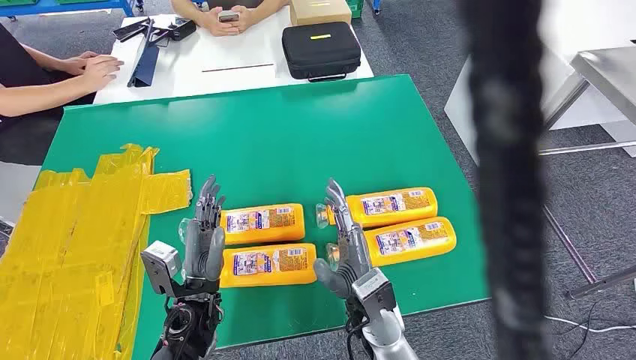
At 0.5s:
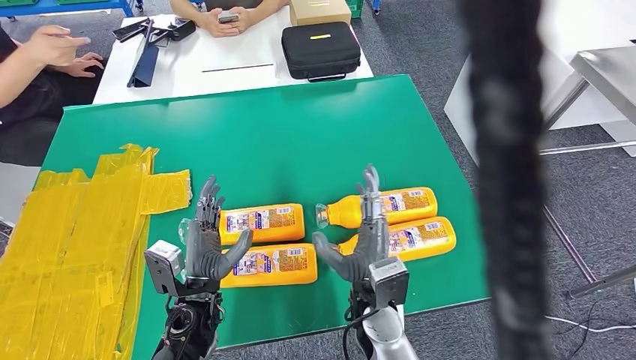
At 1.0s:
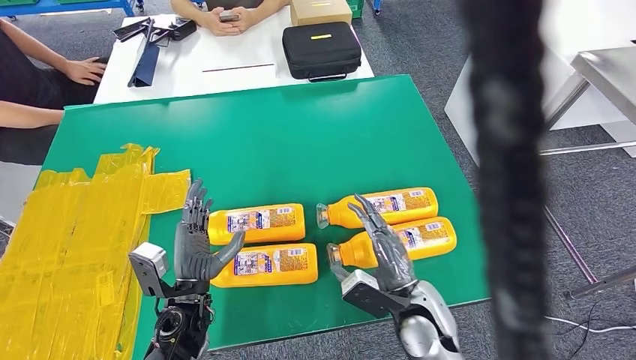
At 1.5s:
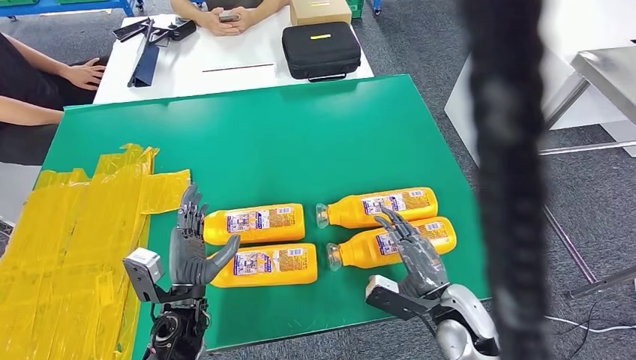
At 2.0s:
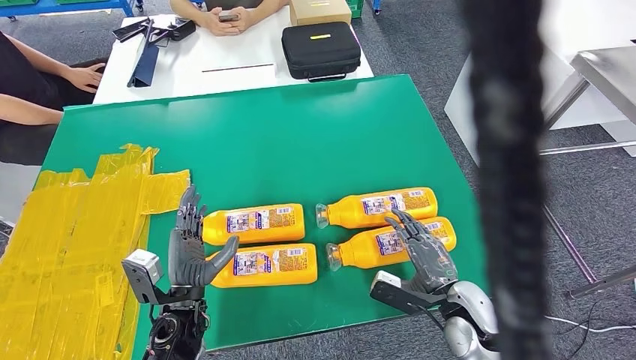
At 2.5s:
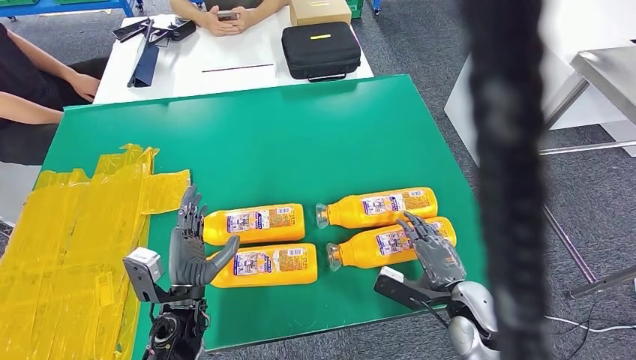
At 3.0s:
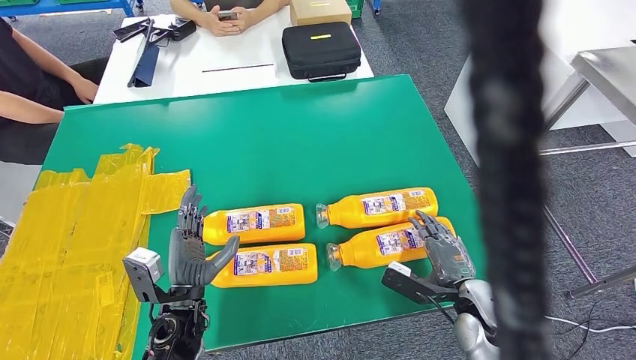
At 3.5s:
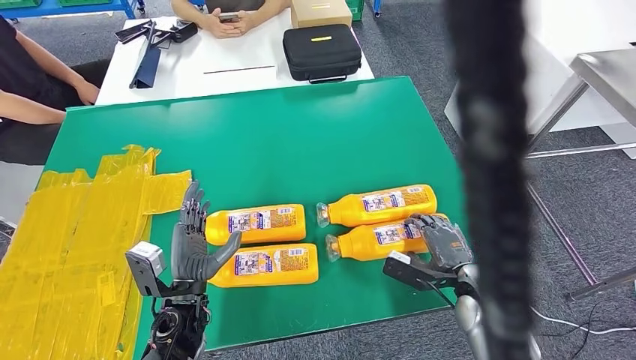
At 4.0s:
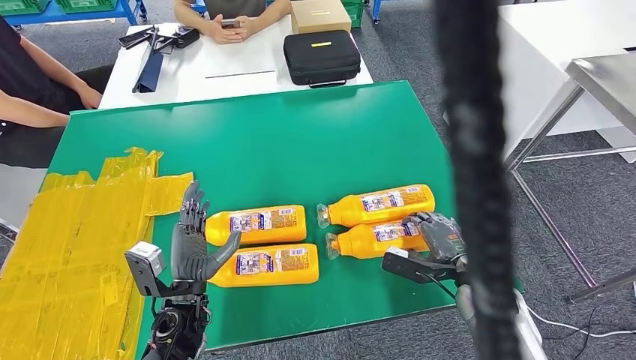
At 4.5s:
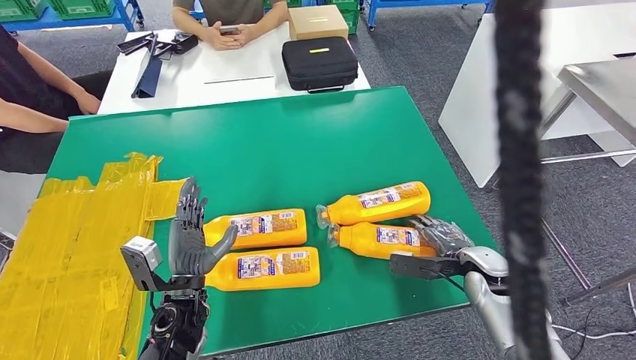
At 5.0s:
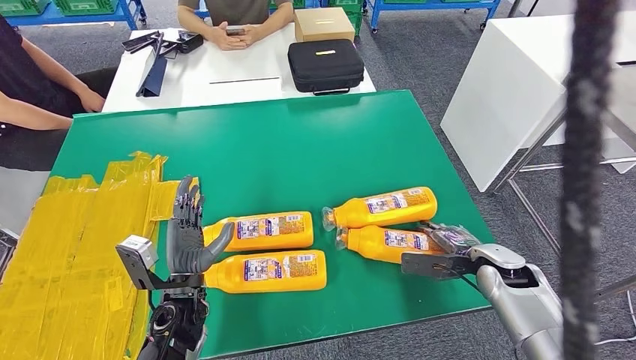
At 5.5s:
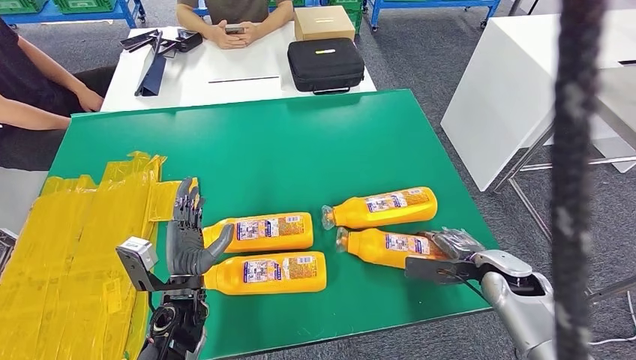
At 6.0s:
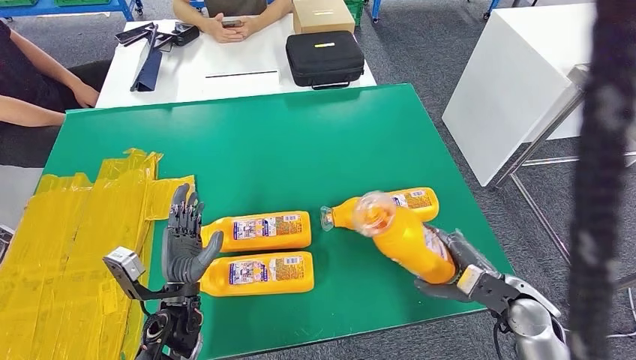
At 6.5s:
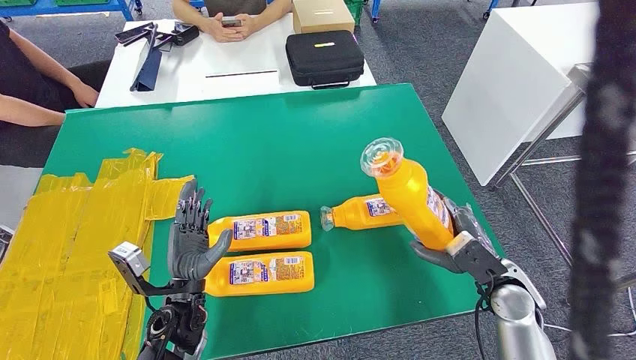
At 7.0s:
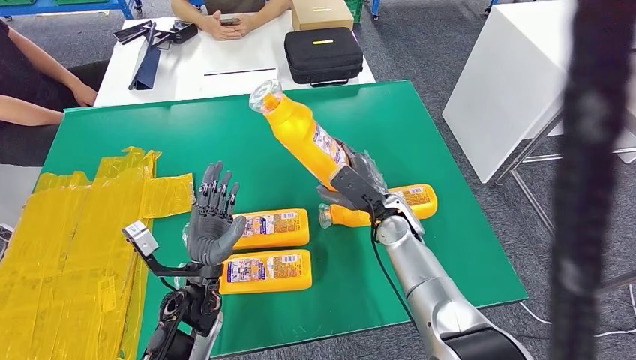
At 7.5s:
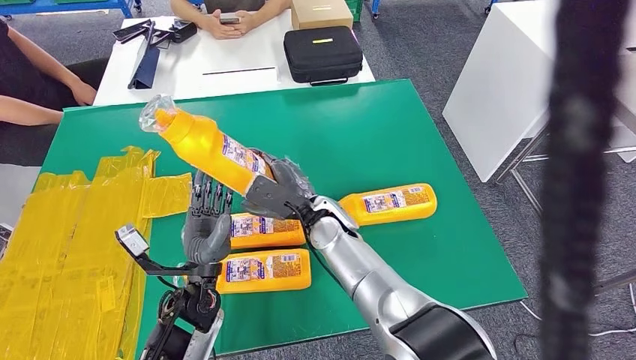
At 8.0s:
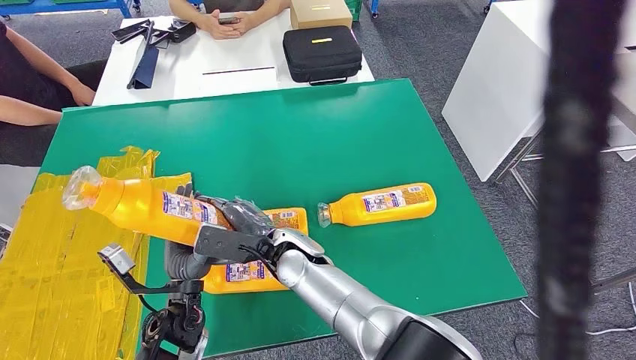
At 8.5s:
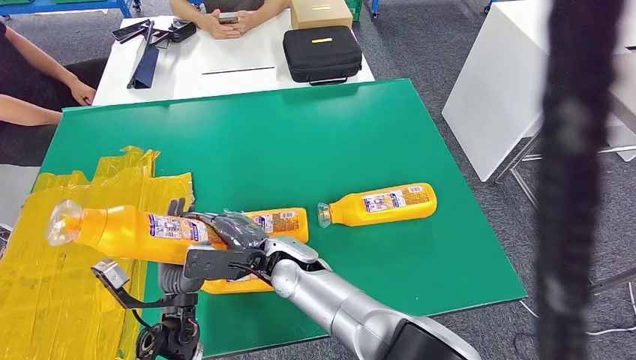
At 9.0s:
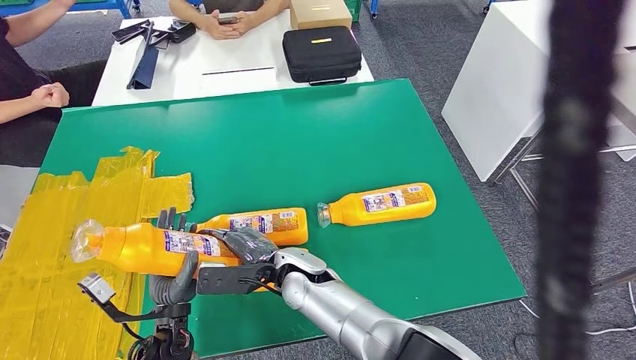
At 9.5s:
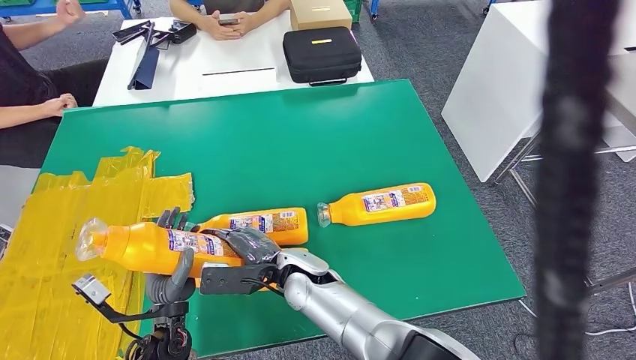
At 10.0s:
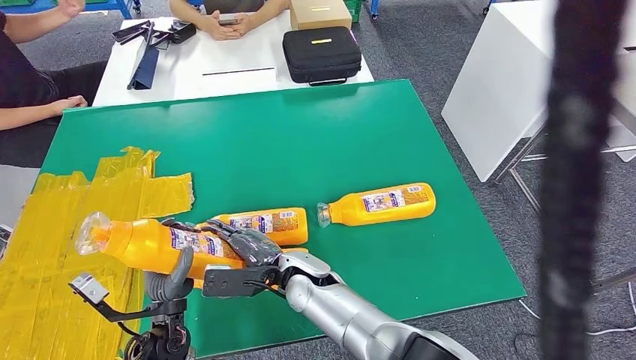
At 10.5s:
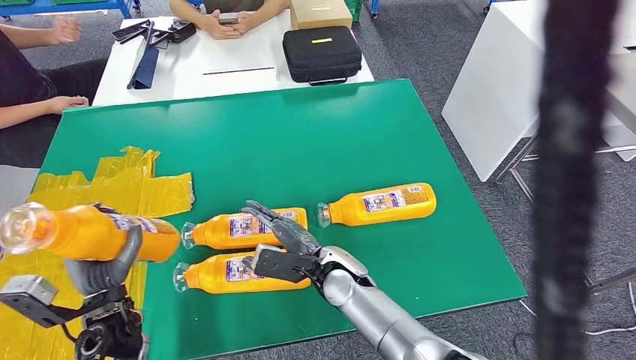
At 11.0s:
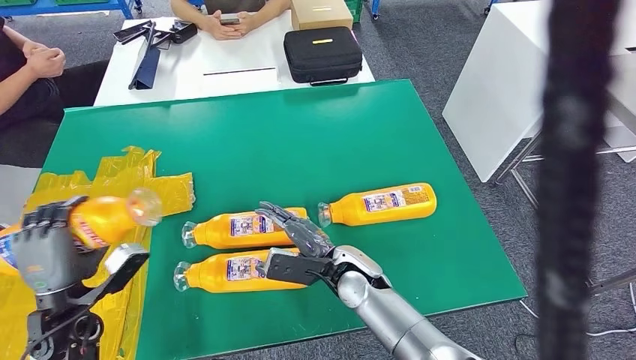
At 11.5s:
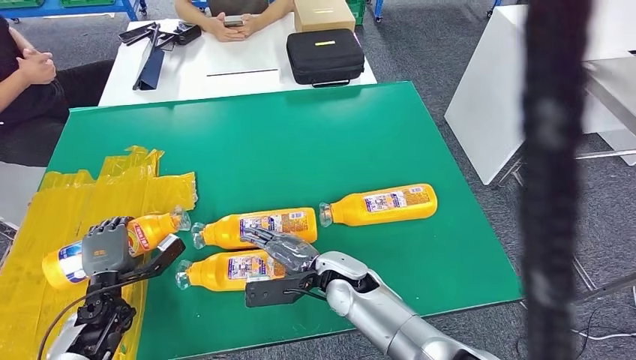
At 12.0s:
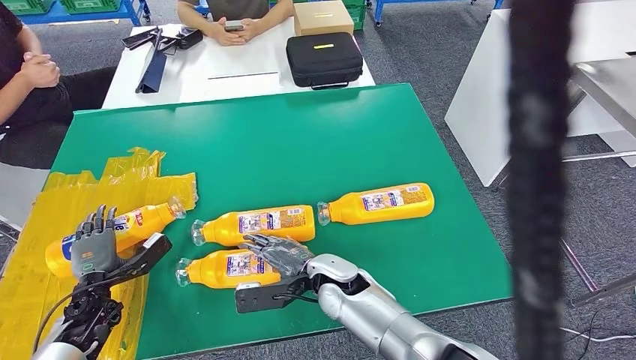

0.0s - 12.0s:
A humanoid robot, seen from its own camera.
Step, 0.0s - 7.0s: Take the fast-moving consumer goods bottle from the table.
8.0s - 10.0s: The right hand moves about 5 cm.

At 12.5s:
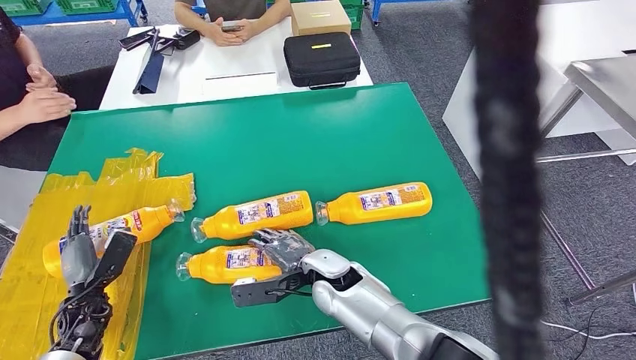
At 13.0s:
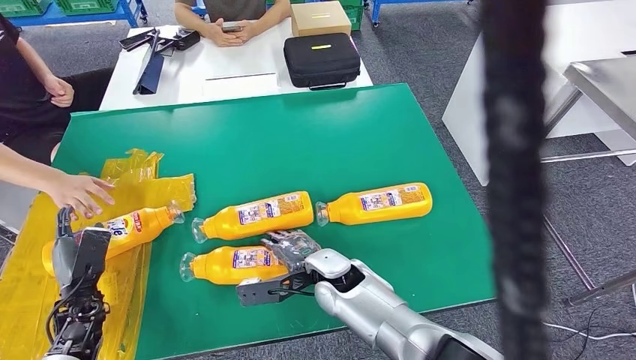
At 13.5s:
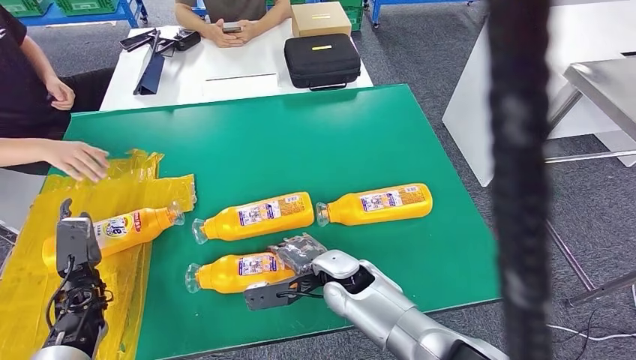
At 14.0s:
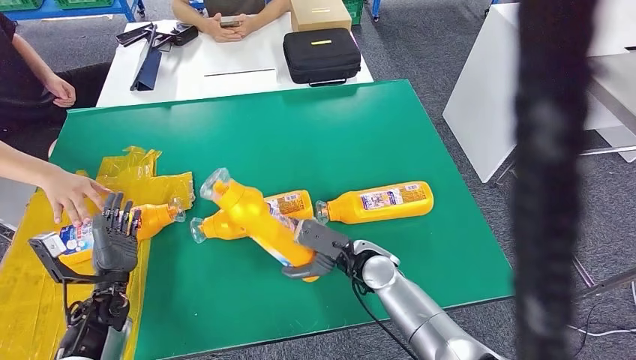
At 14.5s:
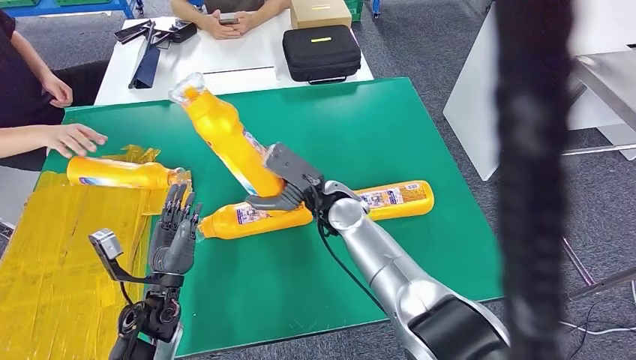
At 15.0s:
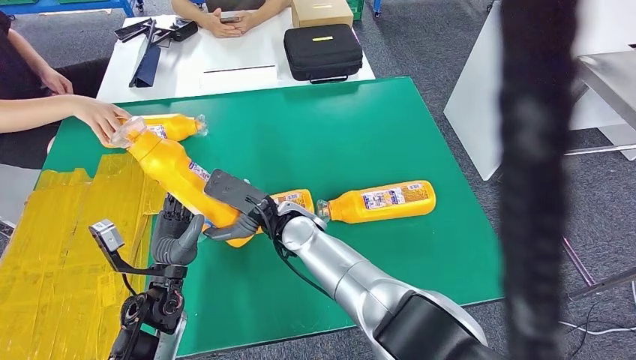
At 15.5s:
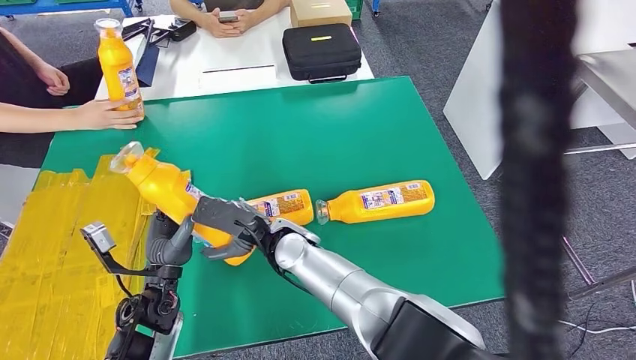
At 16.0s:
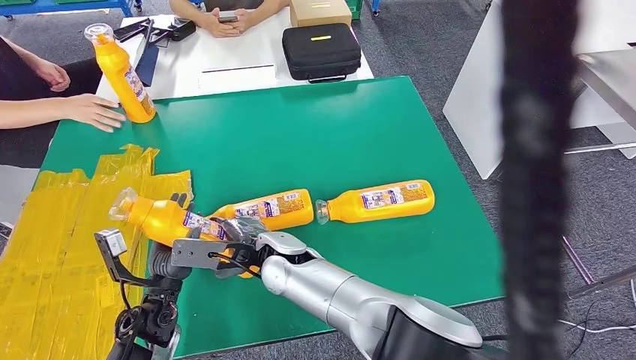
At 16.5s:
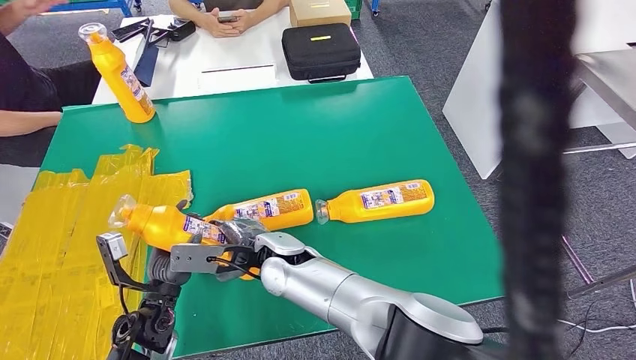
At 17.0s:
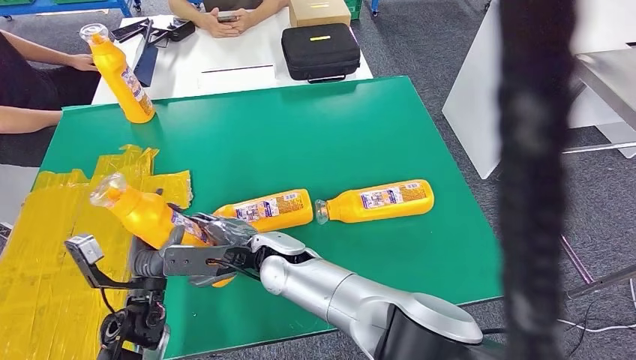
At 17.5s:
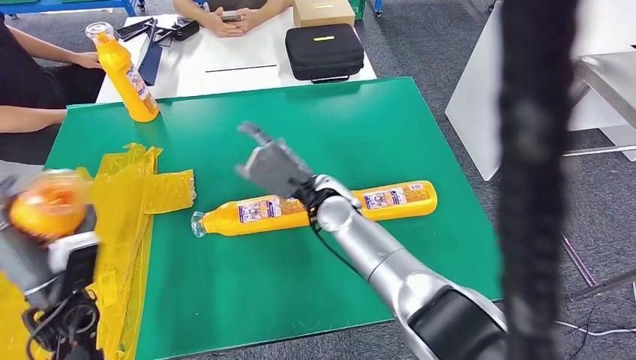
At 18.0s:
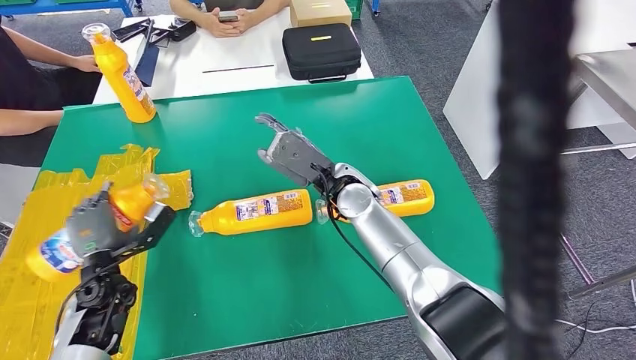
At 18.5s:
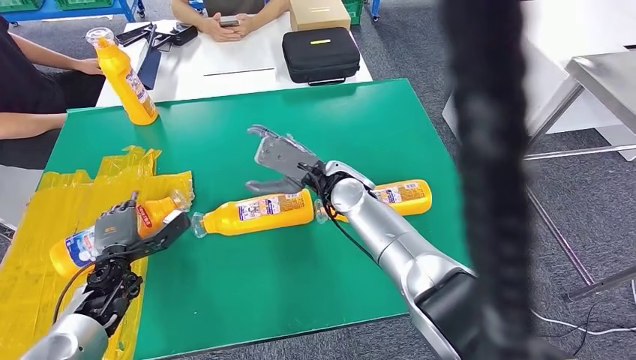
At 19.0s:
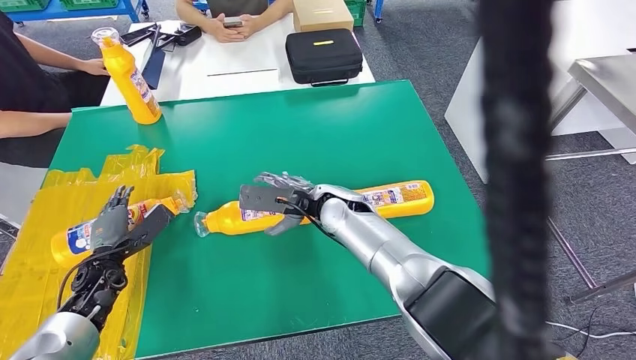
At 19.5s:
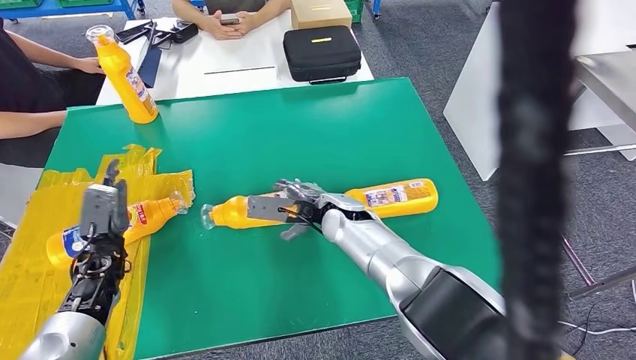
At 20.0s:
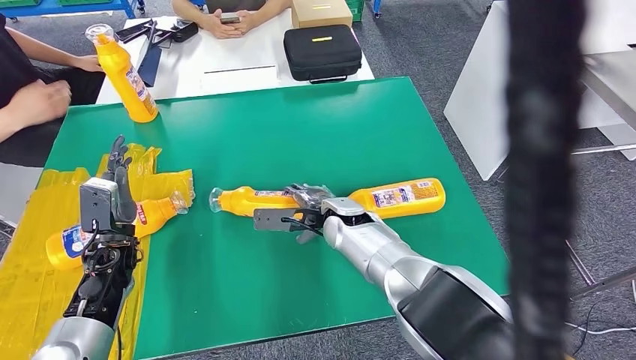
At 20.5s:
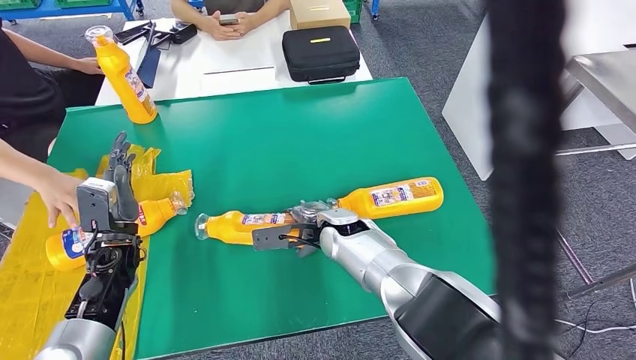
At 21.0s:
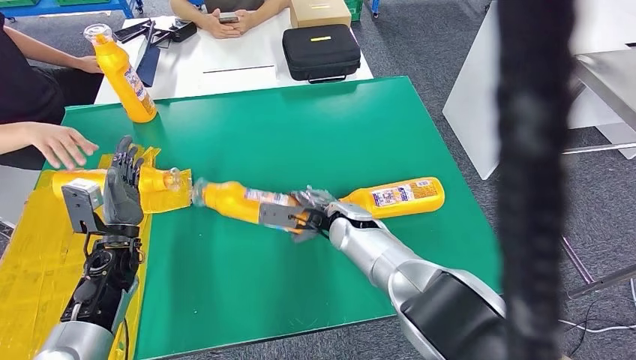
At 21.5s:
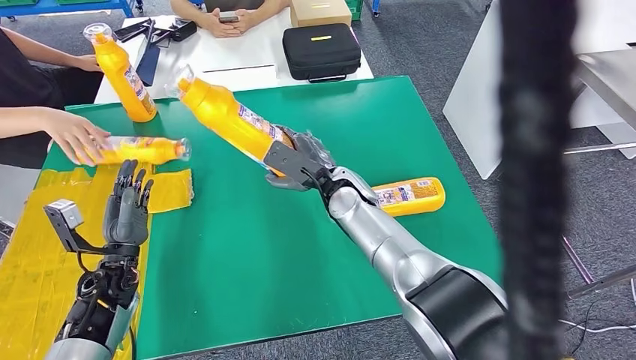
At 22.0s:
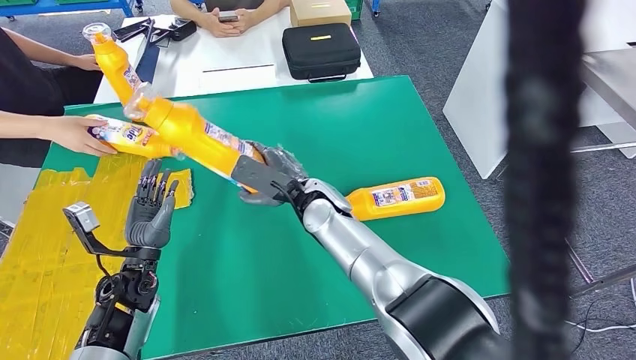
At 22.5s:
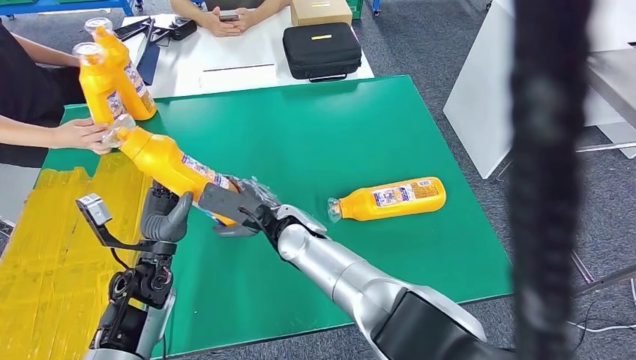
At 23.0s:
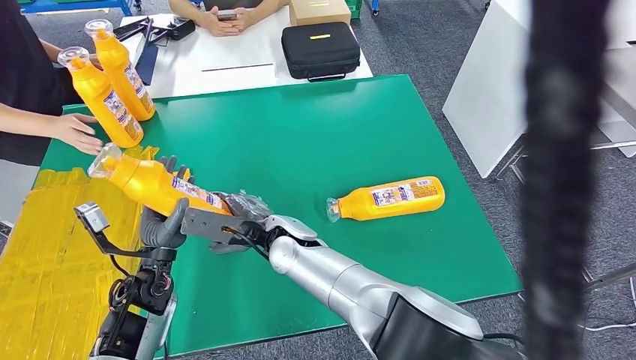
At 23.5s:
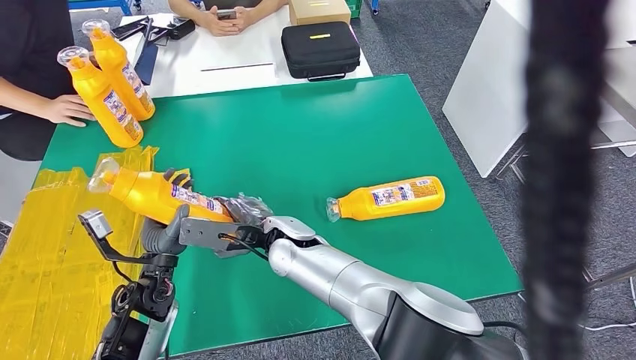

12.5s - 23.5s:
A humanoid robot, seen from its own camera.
Step, 13.5s - 15.5s: Pick up the fast-moving consumer goods bottle from the table.
Step, 16.0s - 19.5s: Flip the fast-moving consumer goods bottle to the front side.
Step, 20.0s - 23.0s: Pick up the fast-moving consumer goods bottle from the table.
